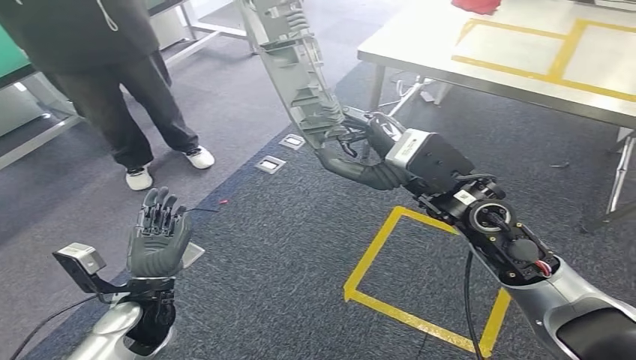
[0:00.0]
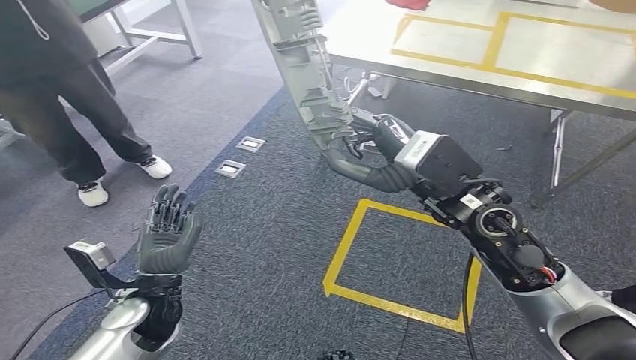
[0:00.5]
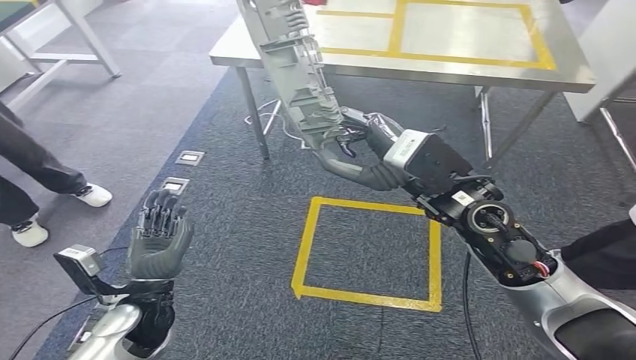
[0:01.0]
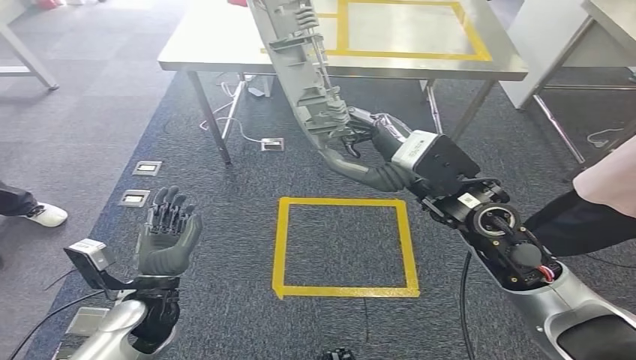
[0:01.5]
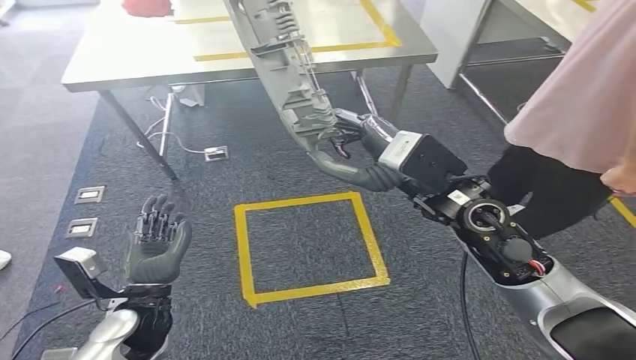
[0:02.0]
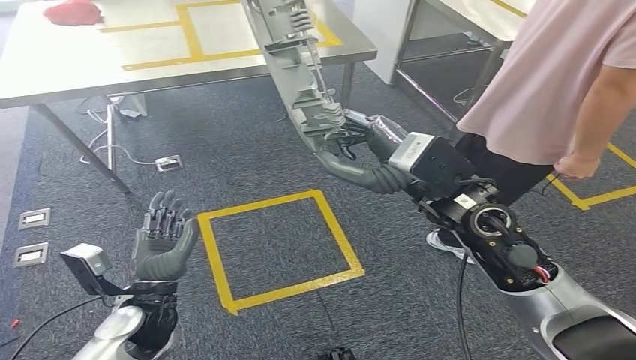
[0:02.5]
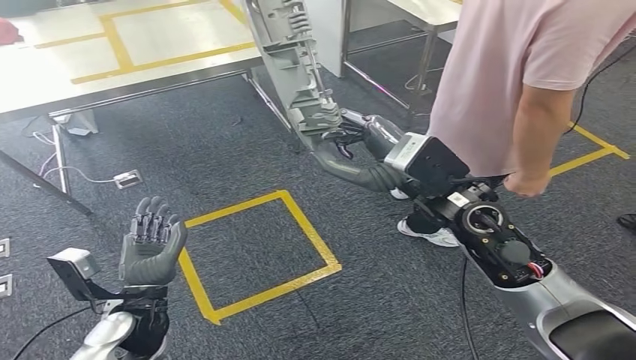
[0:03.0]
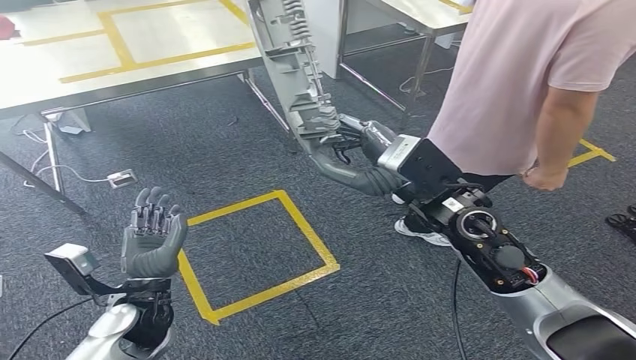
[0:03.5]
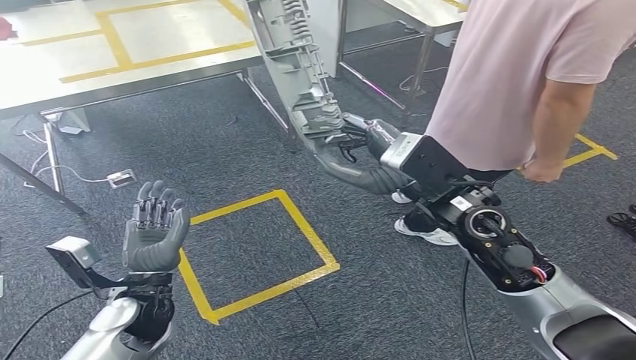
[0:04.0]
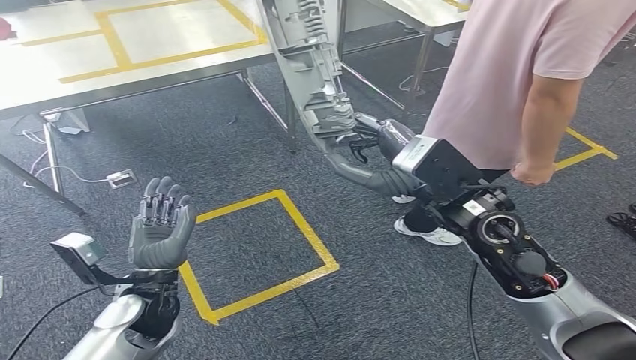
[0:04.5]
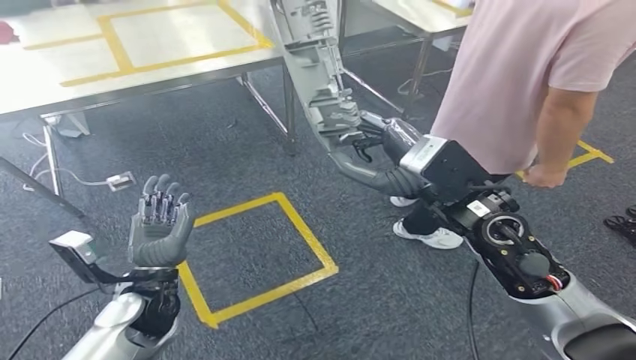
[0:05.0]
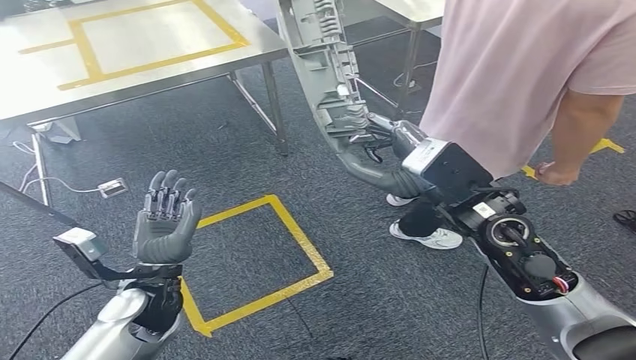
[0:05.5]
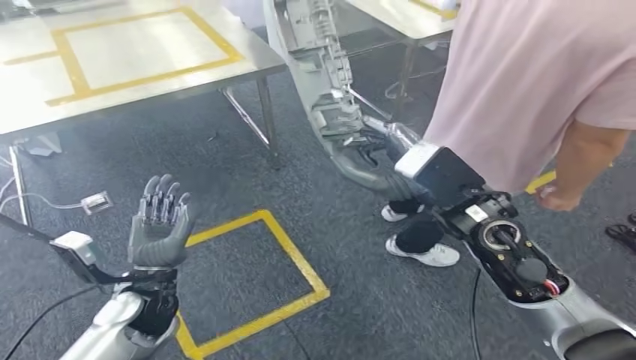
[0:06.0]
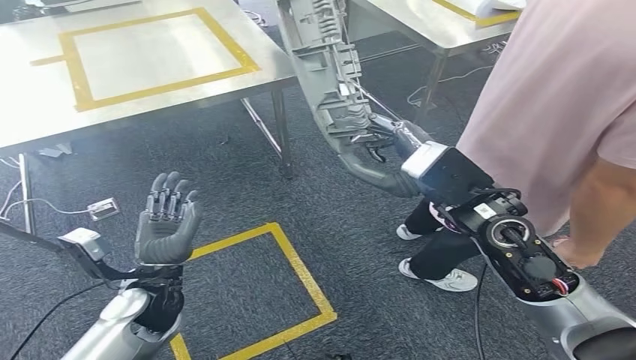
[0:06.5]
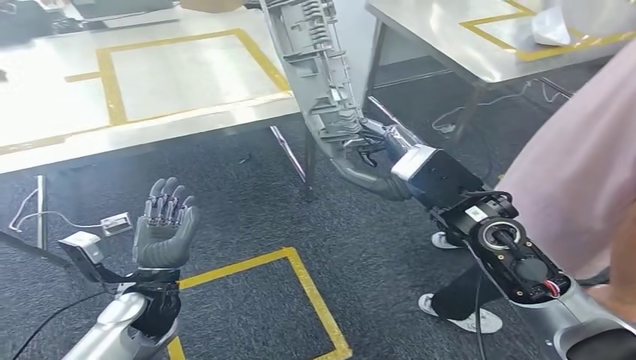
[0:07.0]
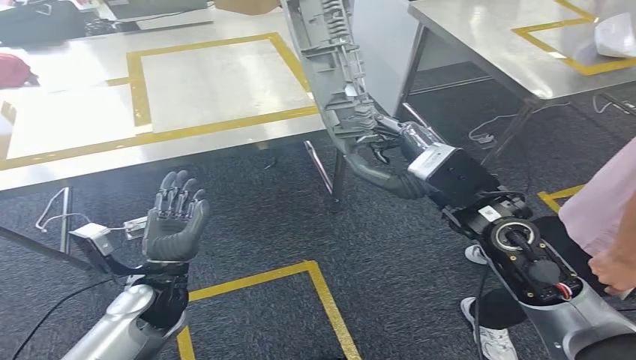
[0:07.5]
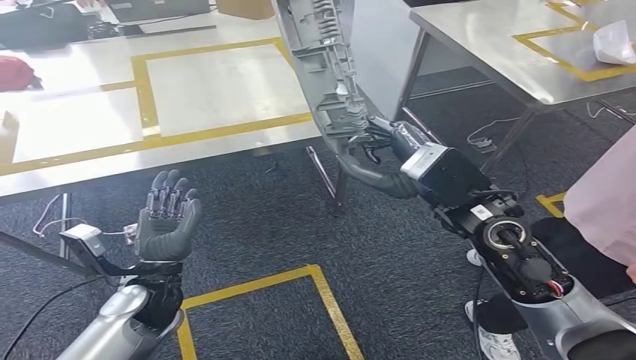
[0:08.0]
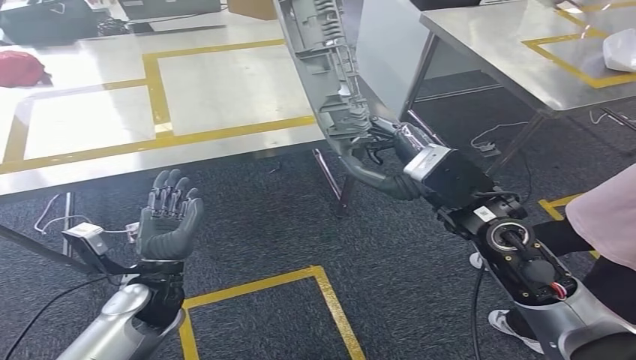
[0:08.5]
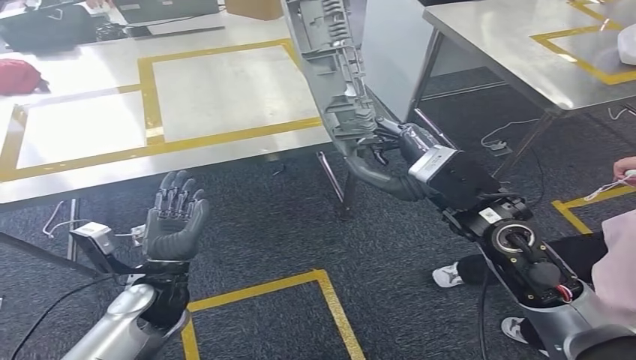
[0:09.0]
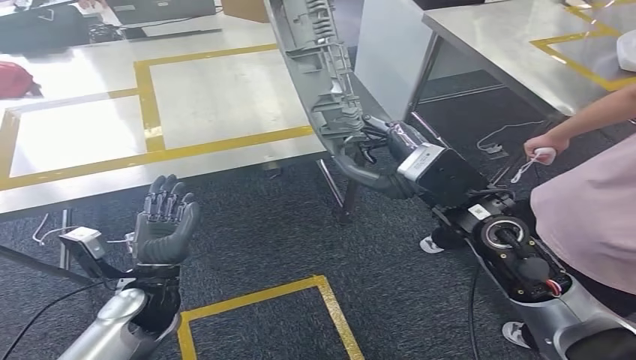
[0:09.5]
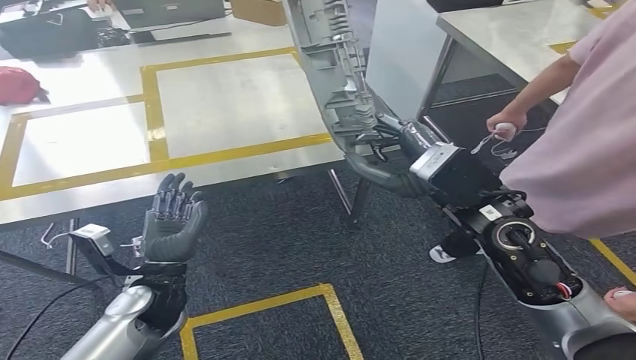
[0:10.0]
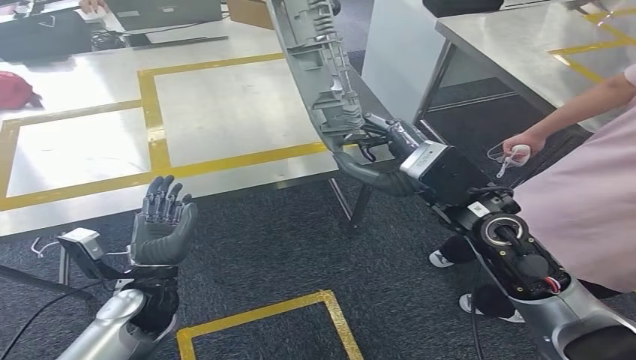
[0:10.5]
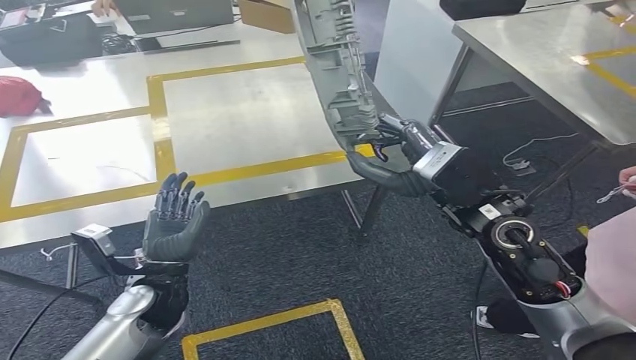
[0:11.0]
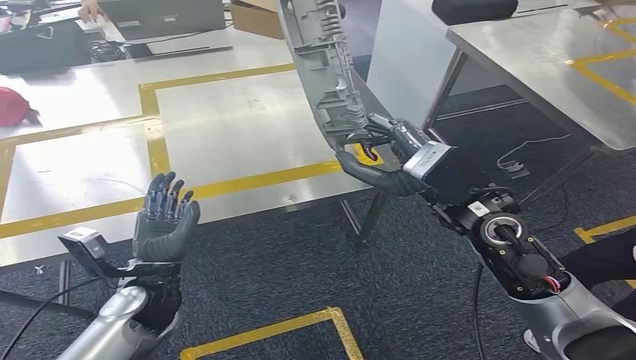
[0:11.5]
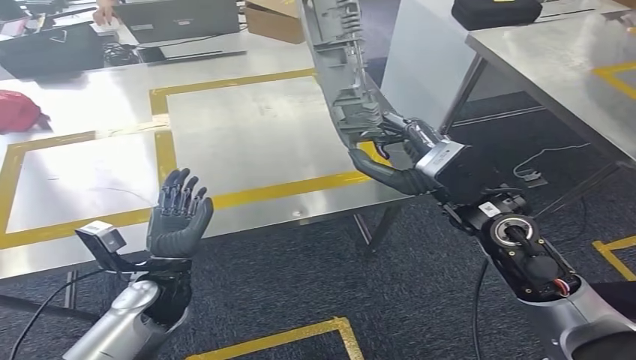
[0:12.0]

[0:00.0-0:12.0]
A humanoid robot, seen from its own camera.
Step, 0:00.0 to 0:11.5: Move the small component to the workbench.

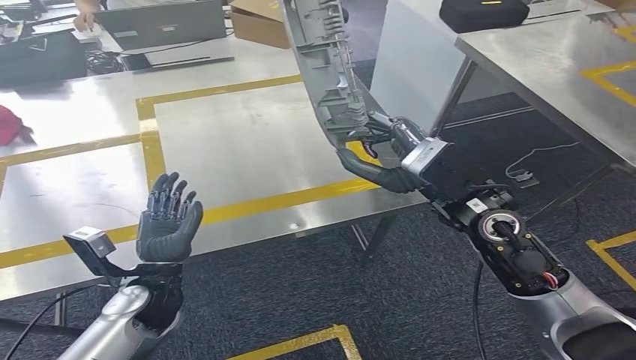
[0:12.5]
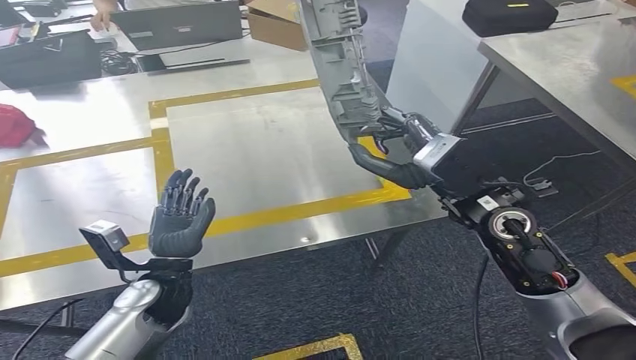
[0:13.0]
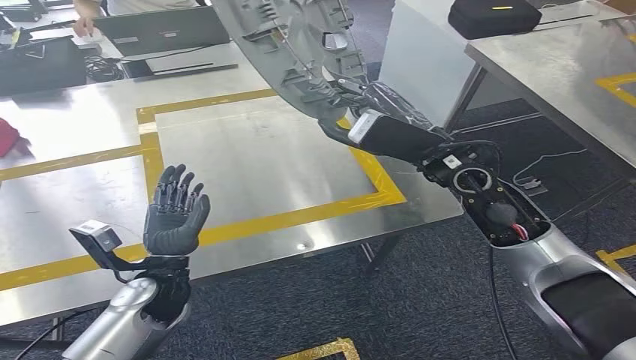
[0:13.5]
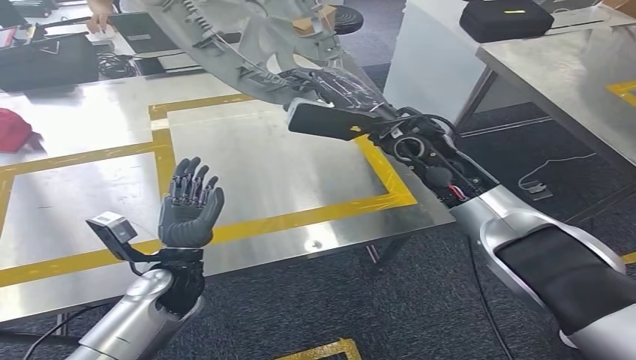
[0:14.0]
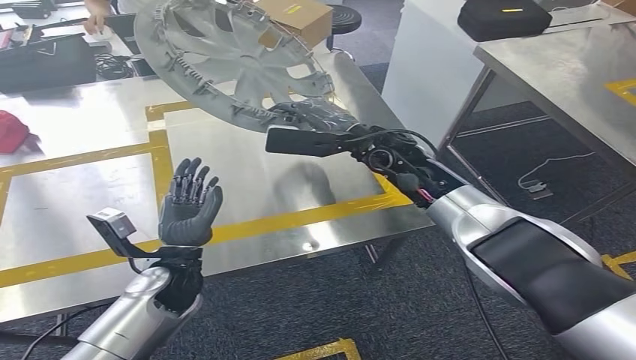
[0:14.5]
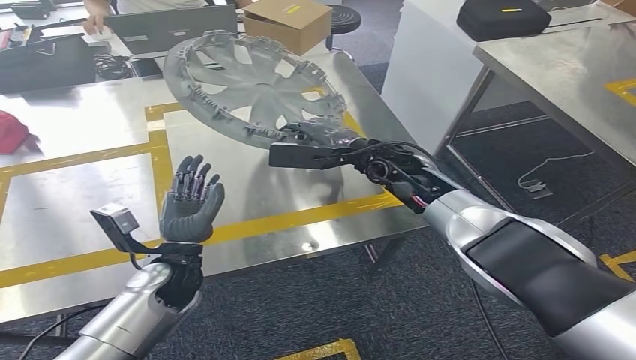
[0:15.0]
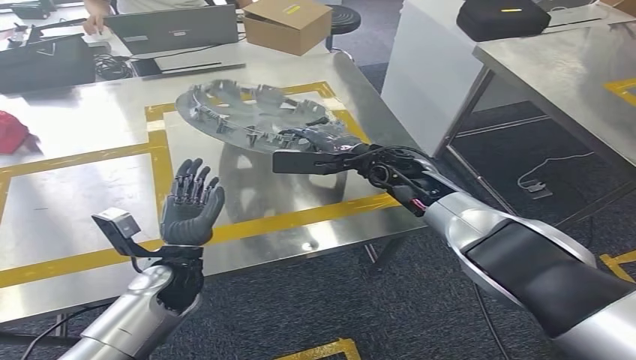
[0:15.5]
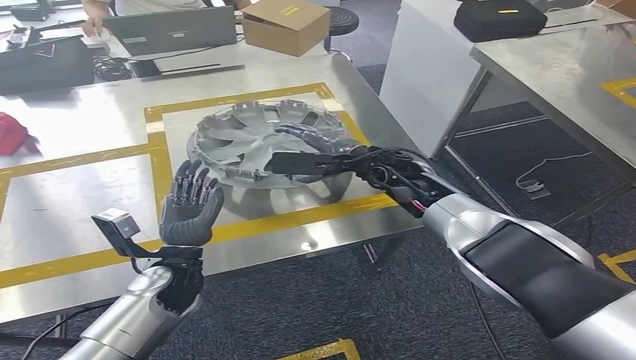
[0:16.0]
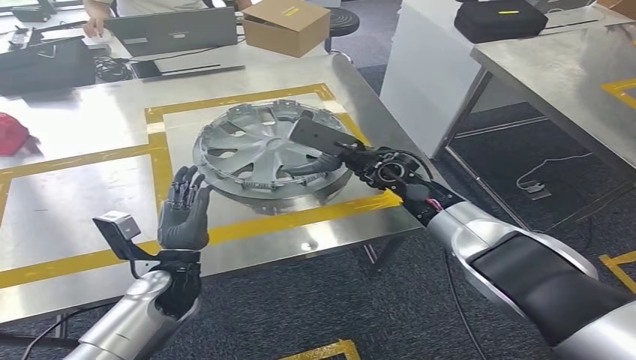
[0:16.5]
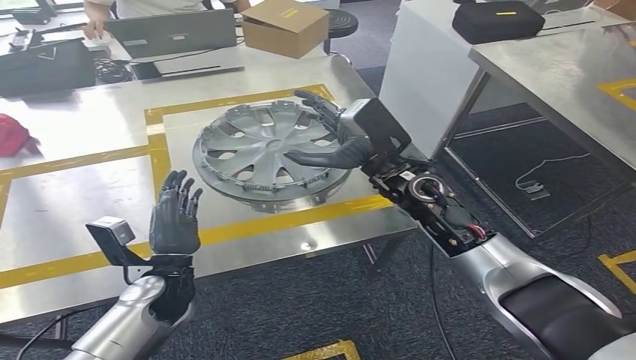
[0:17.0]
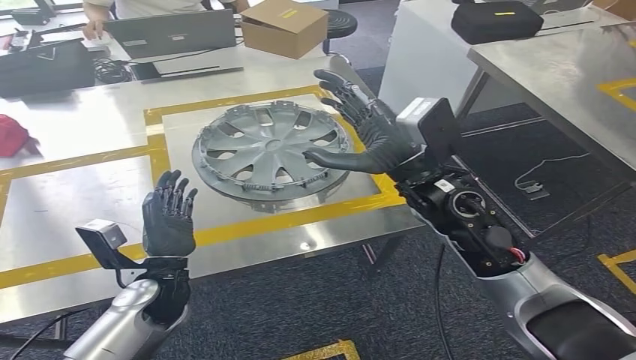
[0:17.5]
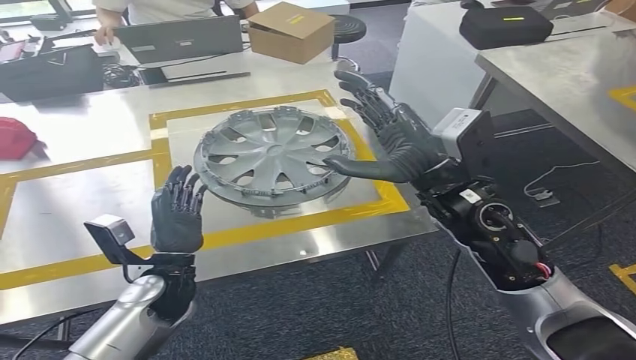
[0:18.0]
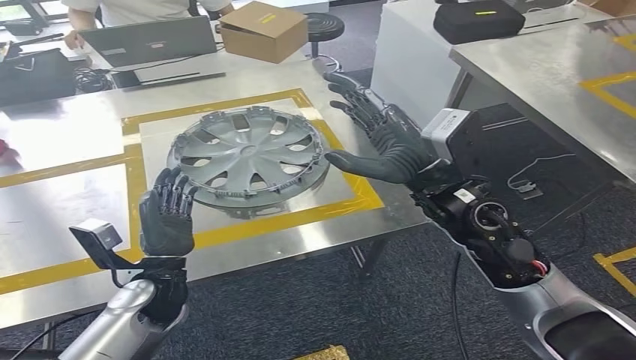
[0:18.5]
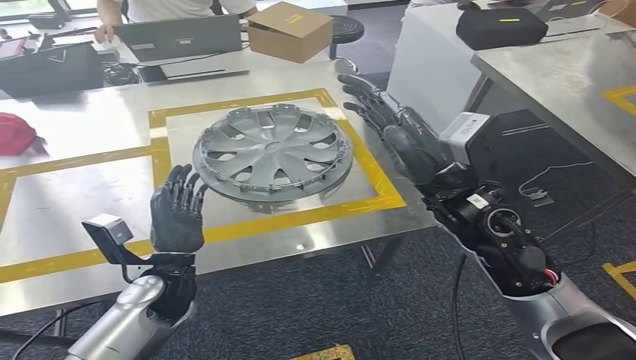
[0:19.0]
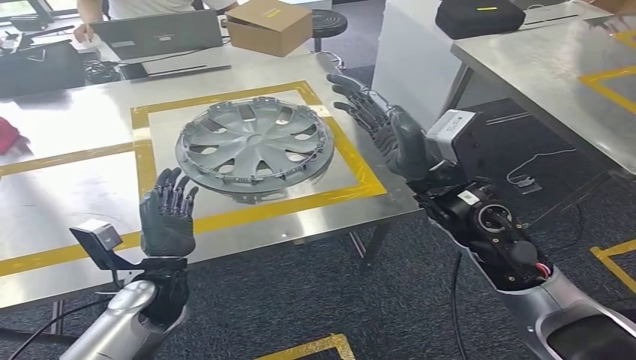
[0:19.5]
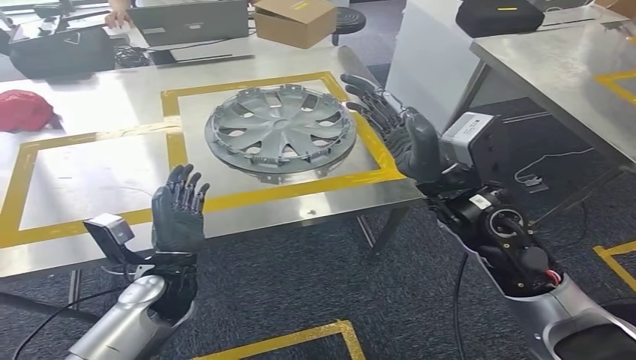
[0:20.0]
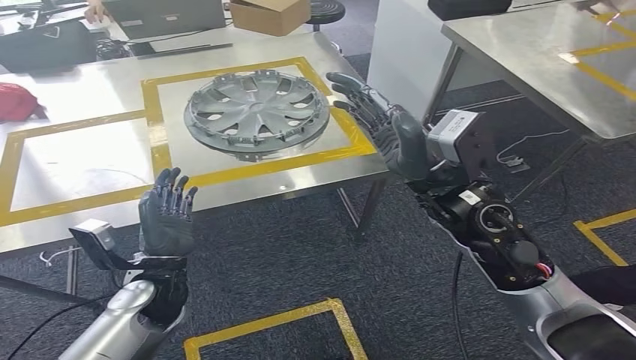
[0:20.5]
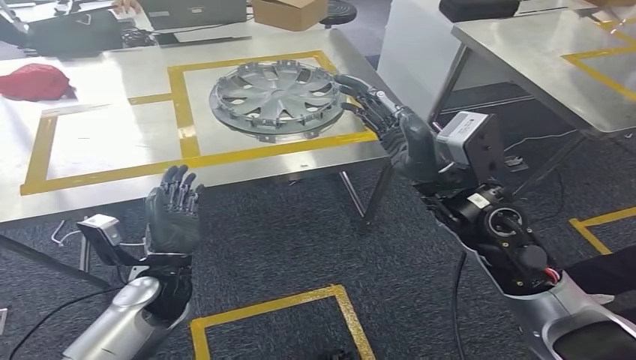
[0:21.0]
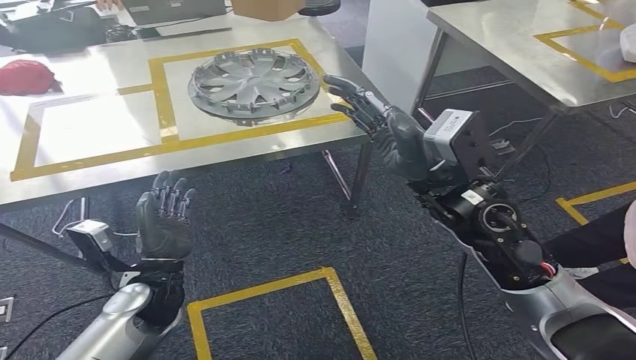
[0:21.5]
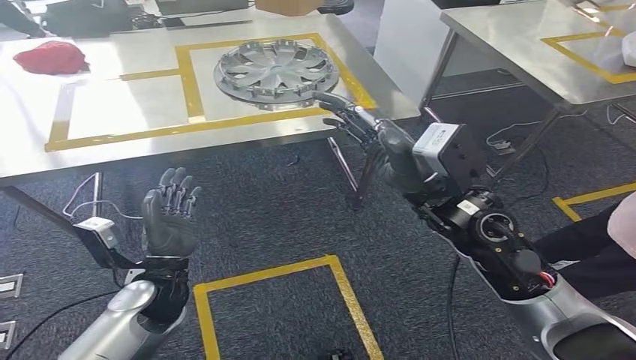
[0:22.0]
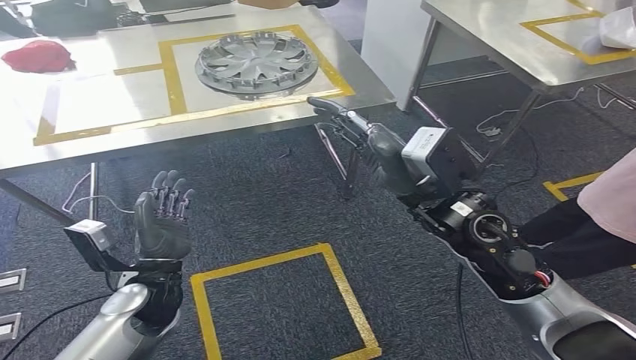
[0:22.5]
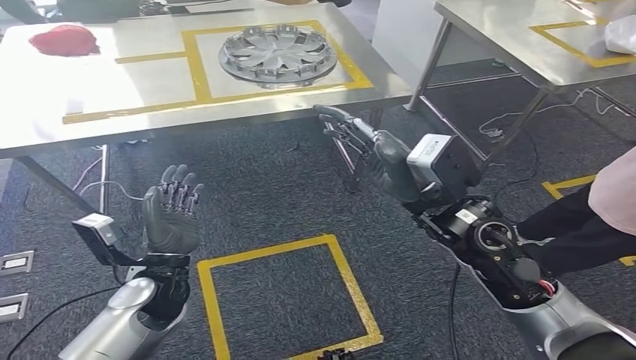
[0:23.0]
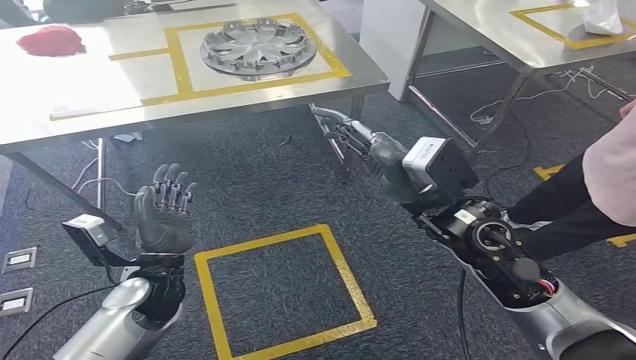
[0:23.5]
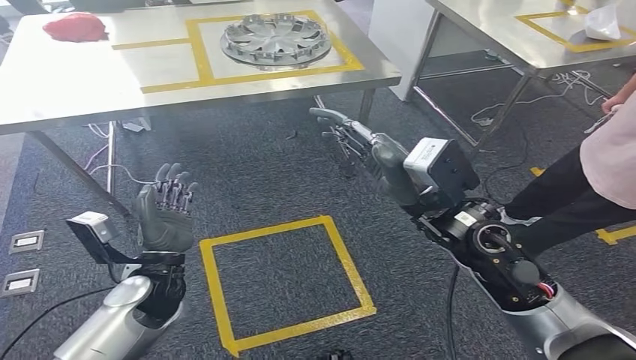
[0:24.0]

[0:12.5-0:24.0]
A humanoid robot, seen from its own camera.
Step, 0:12.5 to 0:17.0: Insert the small component into the corresponding slot on the workbench.
